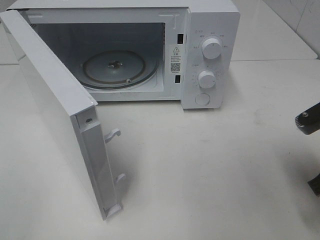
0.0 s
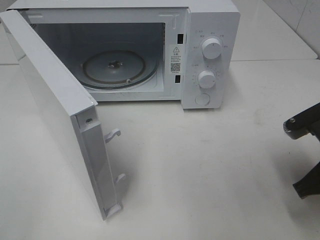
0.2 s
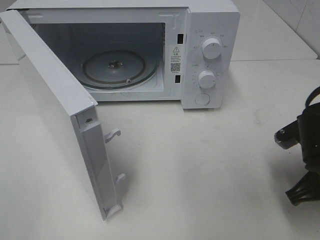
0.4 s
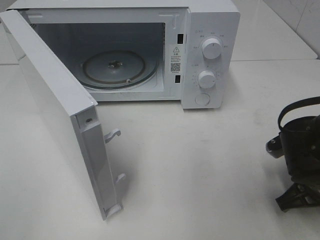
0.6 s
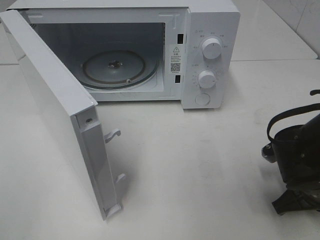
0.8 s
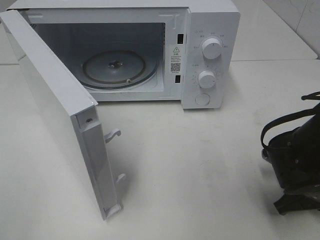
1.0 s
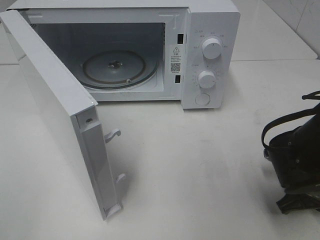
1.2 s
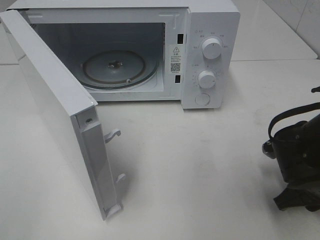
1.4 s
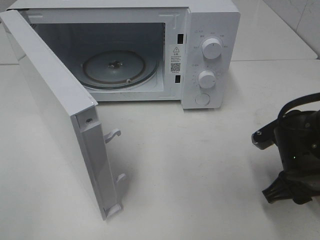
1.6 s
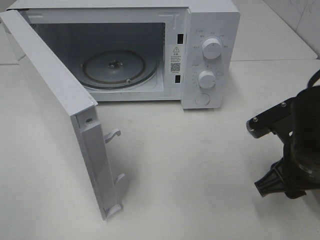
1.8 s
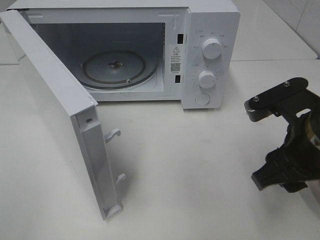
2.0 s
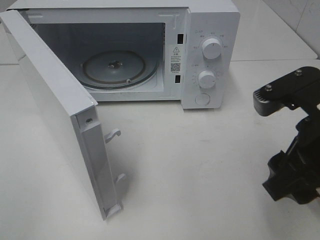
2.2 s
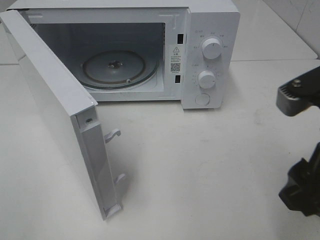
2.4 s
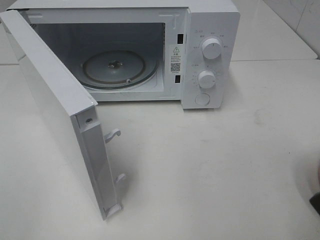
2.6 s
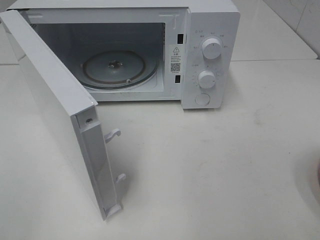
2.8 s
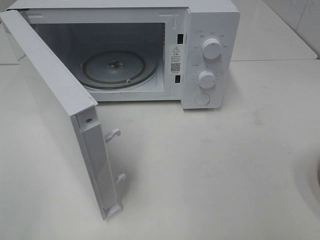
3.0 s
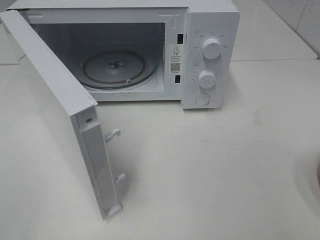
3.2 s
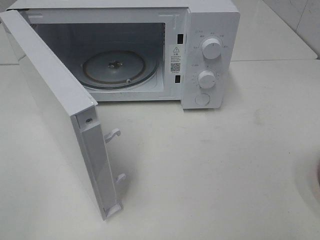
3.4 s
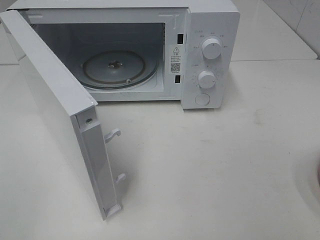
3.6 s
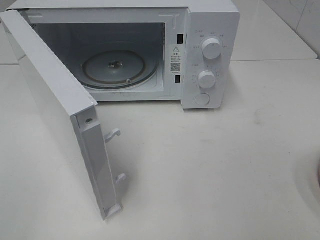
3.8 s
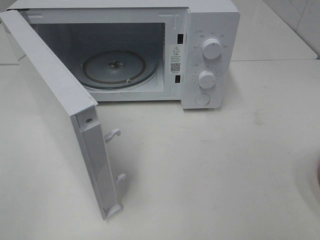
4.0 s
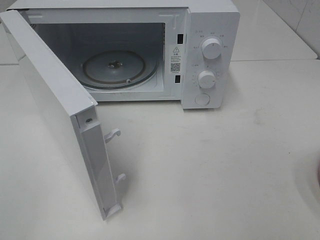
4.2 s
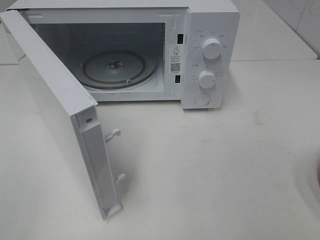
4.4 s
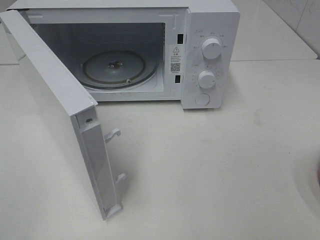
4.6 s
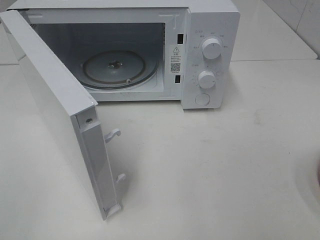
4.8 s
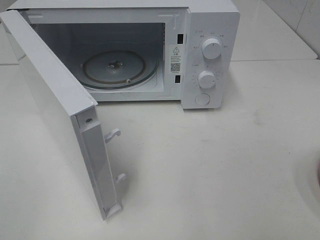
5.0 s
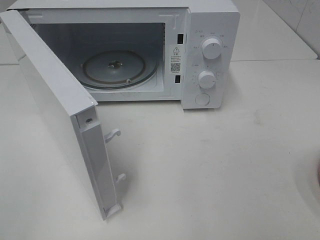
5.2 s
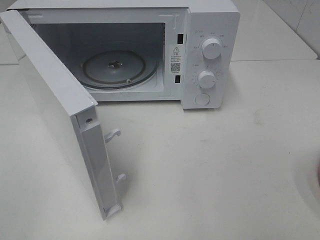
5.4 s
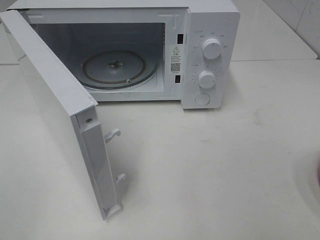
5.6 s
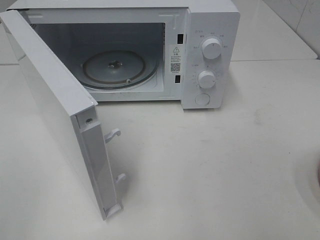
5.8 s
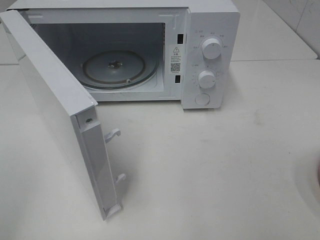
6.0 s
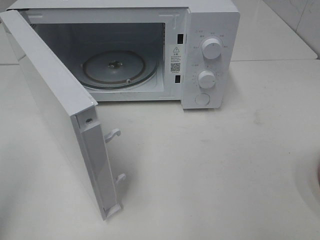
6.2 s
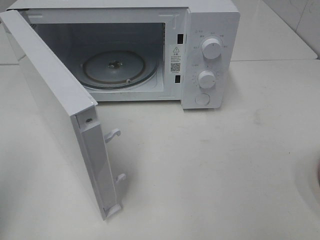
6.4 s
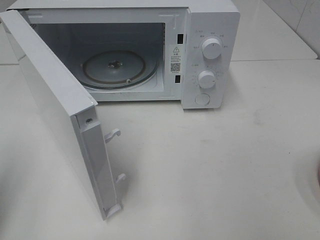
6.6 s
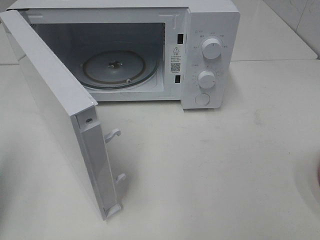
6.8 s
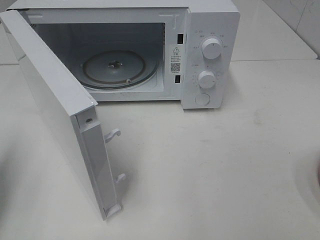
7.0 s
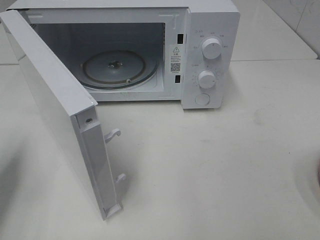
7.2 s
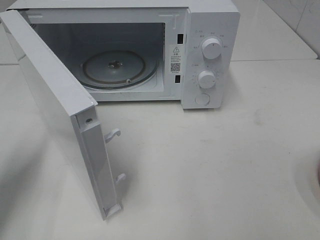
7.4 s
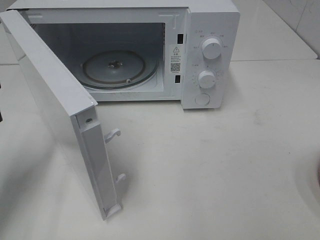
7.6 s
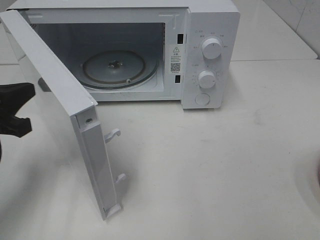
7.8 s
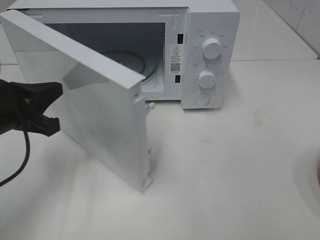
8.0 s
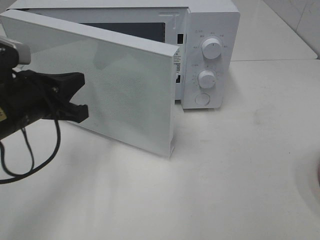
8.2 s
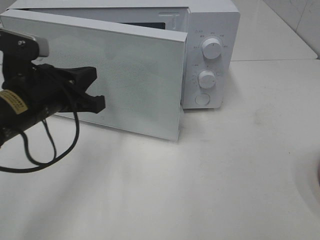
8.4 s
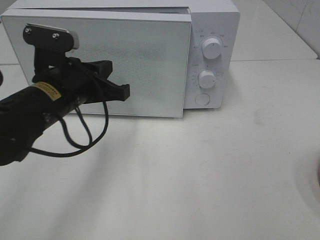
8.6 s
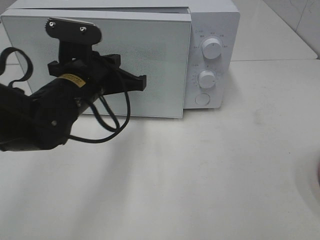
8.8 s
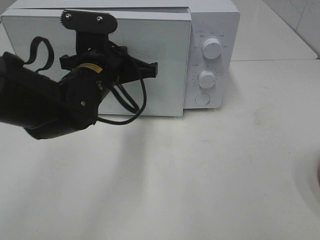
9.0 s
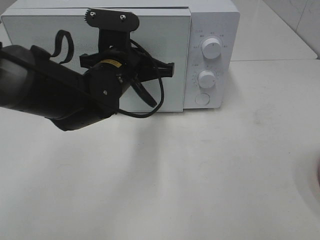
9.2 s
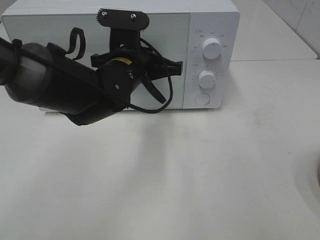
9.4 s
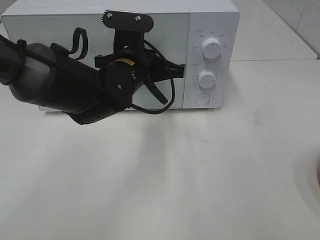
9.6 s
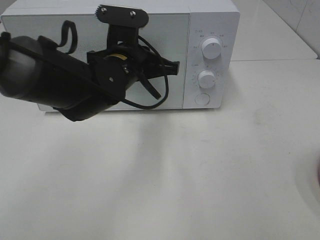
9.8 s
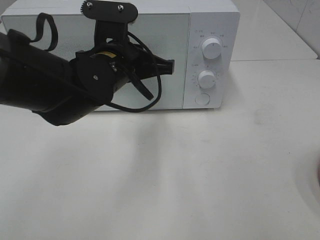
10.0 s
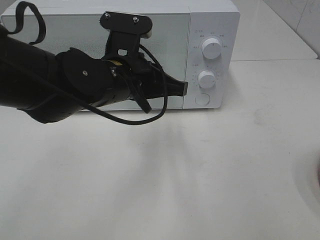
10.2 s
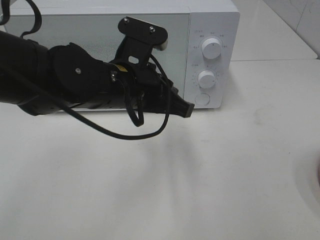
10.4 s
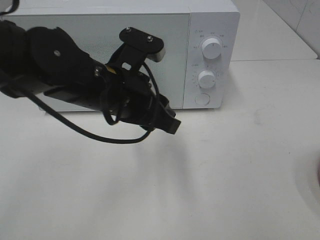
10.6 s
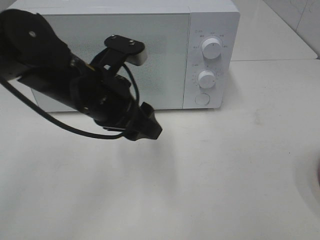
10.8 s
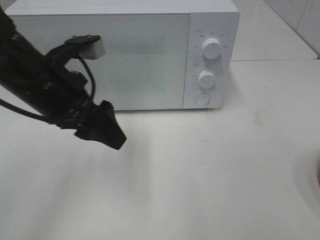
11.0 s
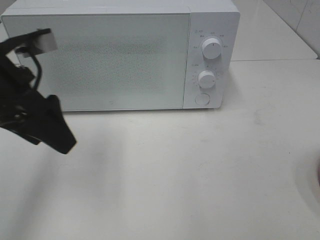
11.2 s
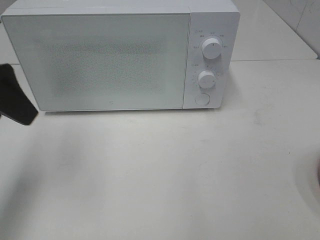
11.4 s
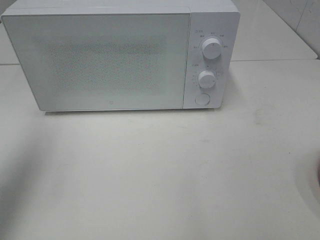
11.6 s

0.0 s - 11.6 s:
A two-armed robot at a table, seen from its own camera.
Task of the whole recording: Heat the burger.
Step, 1.8 s - 10.2 s: Left hand: close the microwave door.
0.0 s - 1.4 s: The right gripper travels downward by roughly 10 cm, and opens up.
1.4 s - 2.8 s: The right gripper travels upward and backward by about 25 cm.
5.8 s - 7.2 s: The left gripper goes some 20 cm forward and downward, and closes up.
7.2 s - 8.8 s: The left gripper shifts approximately 25 cm to the right and forward.
8.8 s - 10.2 s: The left gripper heads to the right, covering about 5 cm.
10.2 s - 11.6 s: The left gripper is displaced to the left and upward by roughly 30 cm, and opens up.

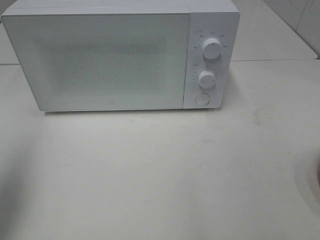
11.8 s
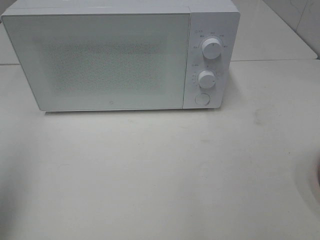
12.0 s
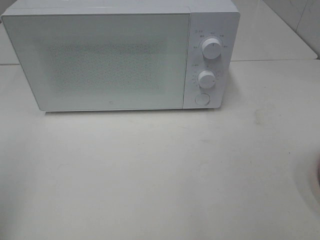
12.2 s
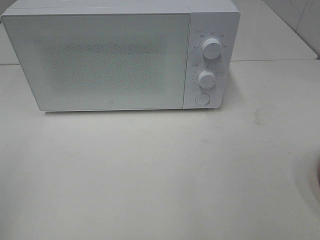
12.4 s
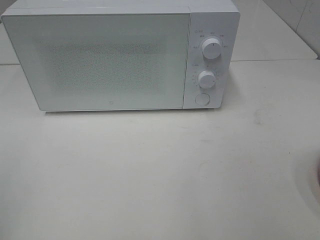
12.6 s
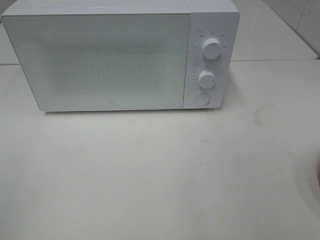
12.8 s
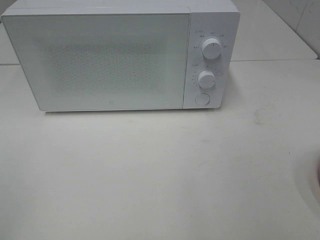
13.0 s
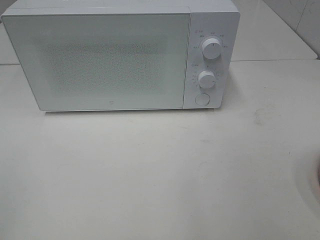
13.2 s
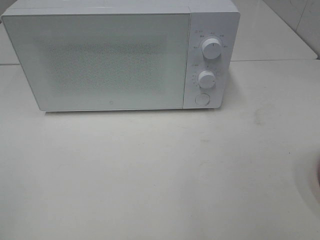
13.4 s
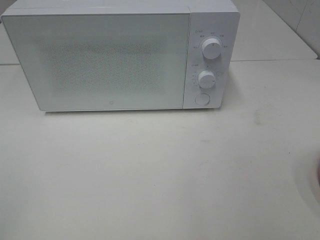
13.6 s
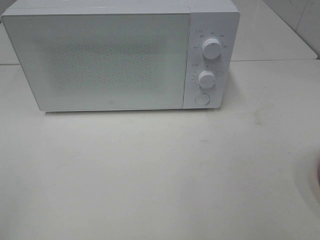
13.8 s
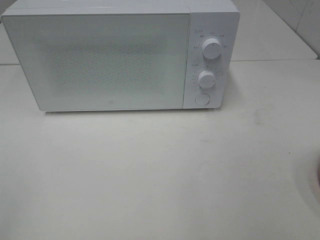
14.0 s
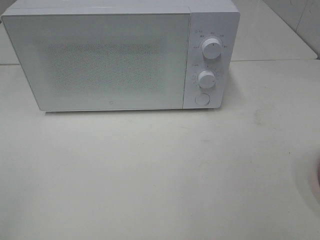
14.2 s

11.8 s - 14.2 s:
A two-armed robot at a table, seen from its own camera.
Task of the whole recording: Heat the burger.
11.8 s - 13.0 s: The left gripper heads backward, covering about 15 cm.

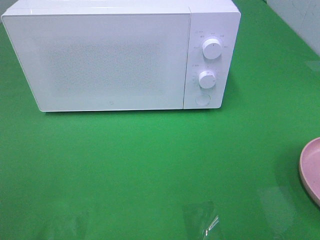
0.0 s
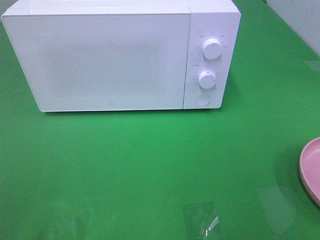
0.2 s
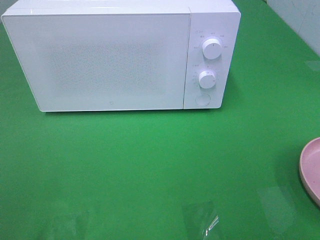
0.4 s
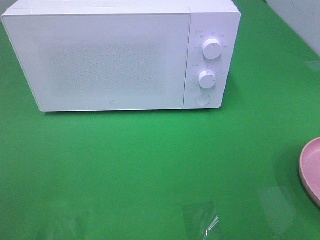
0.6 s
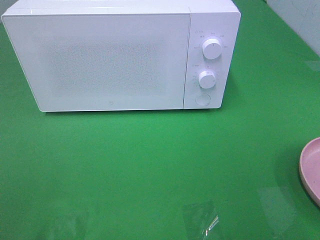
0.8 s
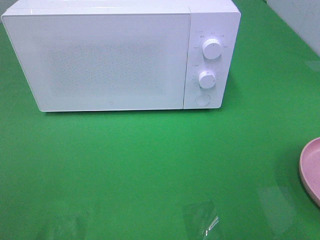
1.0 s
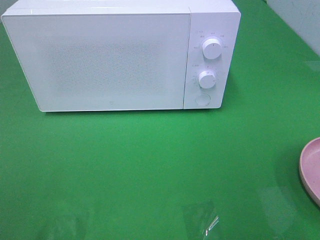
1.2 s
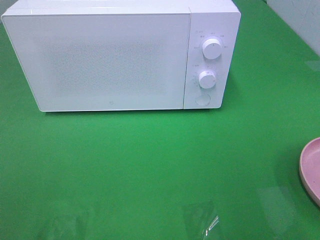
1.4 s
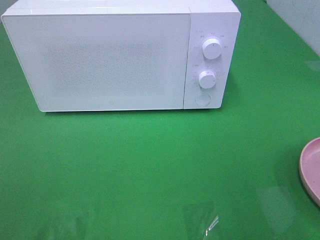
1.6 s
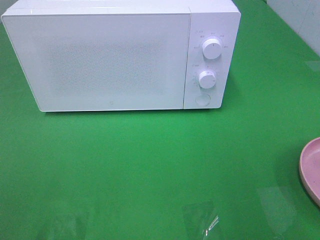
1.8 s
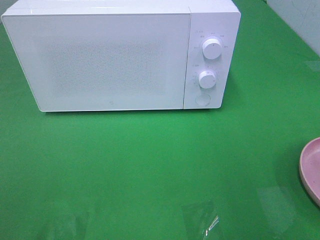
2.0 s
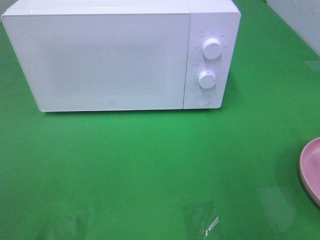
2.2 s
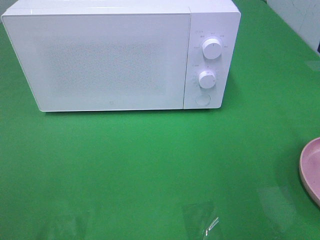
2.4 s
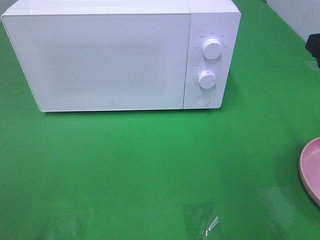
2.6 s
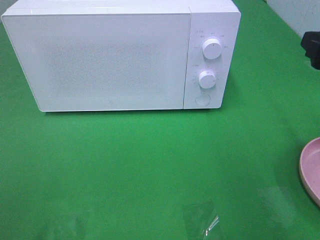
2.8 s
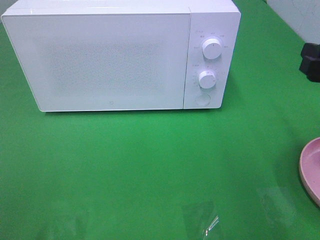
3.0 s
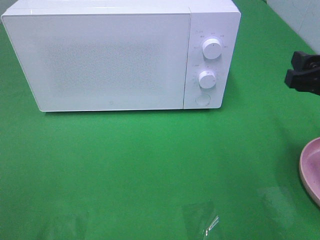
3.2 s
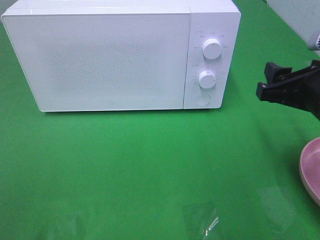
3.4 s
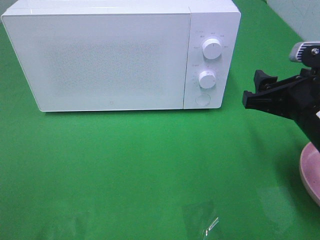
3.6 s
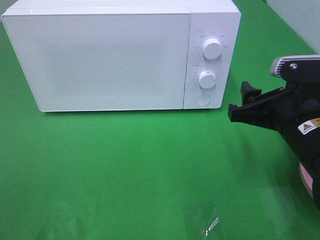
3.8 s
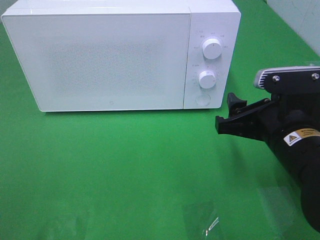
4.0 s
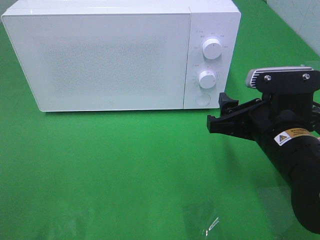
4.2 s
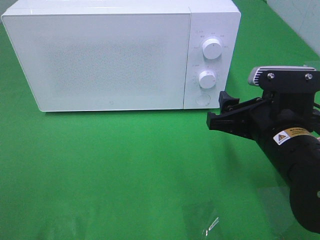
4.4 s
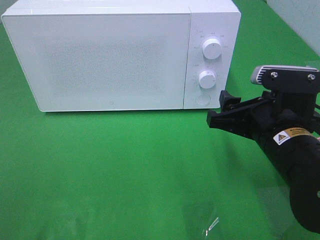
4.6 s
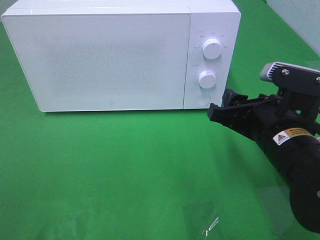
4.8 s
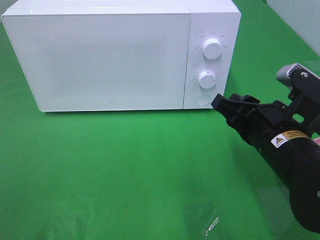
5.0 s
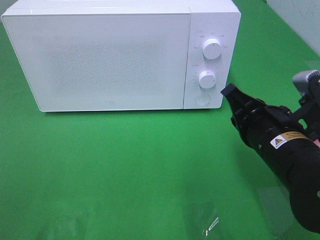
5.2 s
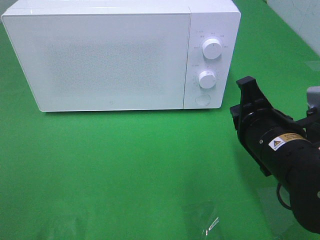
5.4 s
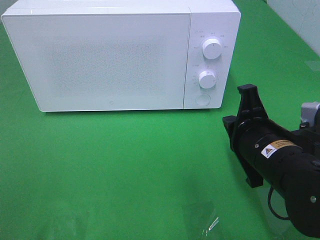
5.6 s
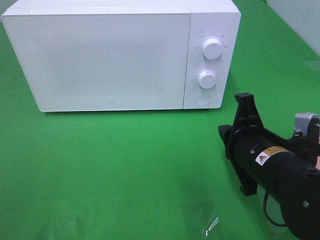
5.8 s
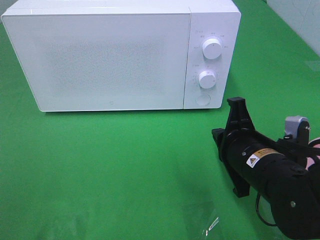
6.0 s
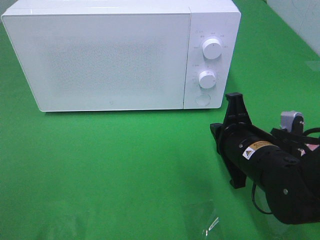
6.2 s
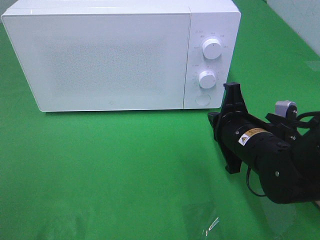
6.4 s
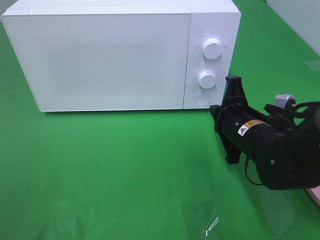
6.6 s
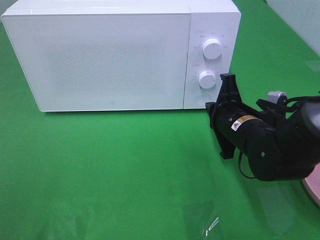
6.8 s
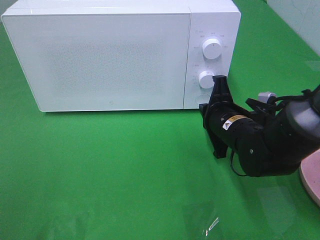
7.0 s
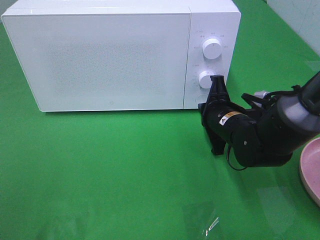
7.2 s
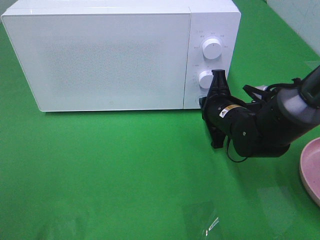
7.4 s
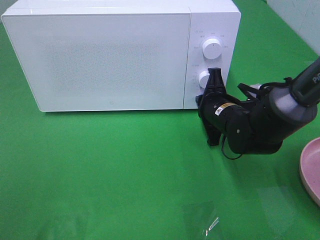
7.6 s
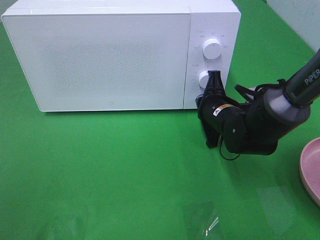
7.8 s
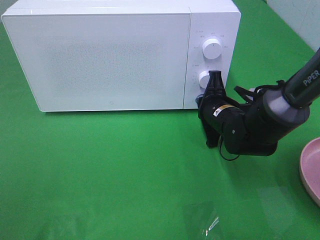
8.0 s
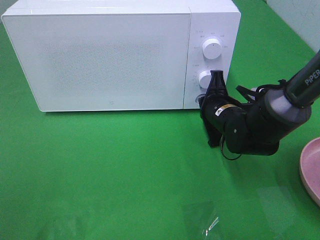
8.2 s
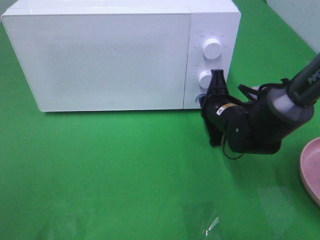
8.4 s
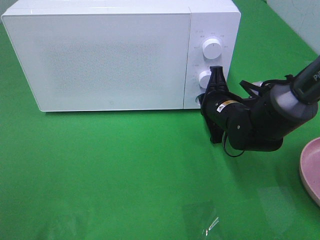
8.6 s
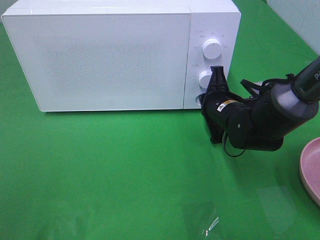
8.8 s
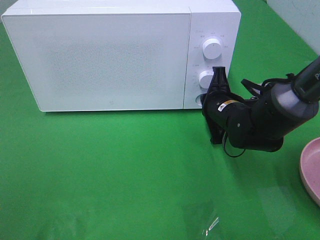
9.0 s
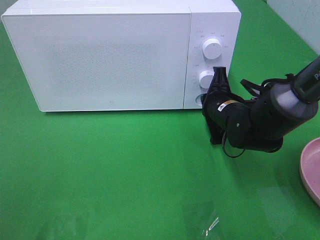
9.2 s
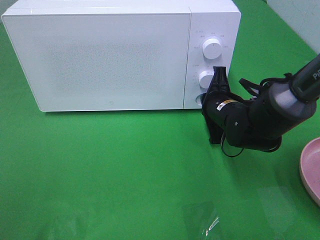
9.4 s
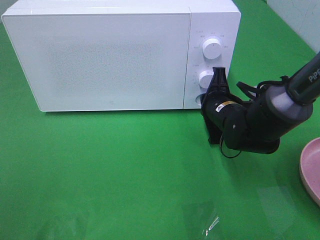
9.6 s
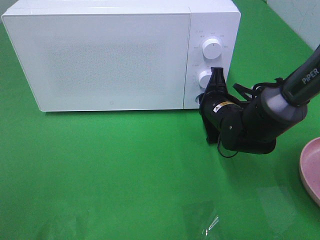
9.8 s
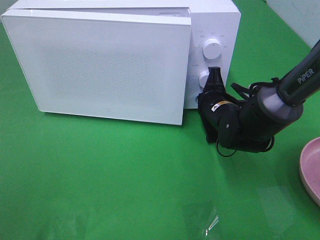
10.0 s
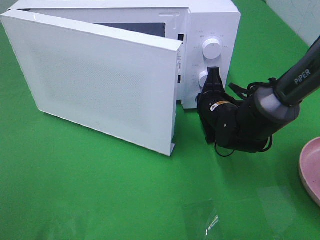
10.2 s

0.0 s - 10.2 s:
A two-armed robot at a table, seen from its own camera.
Task of the whole recording: Heat the burger.
1.4 s - 3.0 s: The right gripper travels forward and downward by about 15 cm.
3.0 s - 4.4 s: The right gripper moves to the left and downward, roughly 15 cm.
4.4 s - 5.8 s: The right gripper closes up.
5.8 s - 7.2 s: The right gripper is displaced forward by roughly 10 cm.
7.2 s - 10.2 s: The grippers stay close to where they were, moving slightly.
